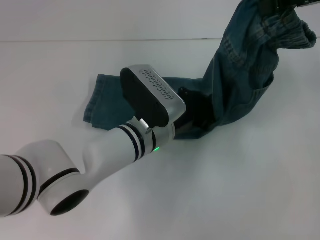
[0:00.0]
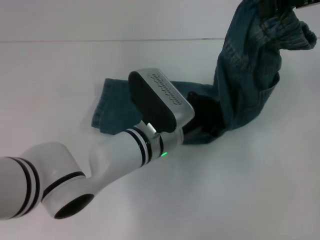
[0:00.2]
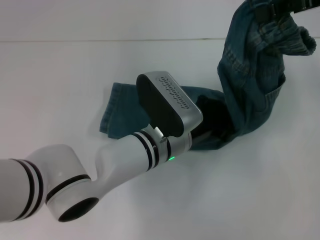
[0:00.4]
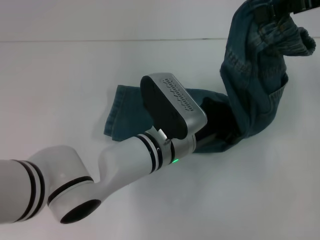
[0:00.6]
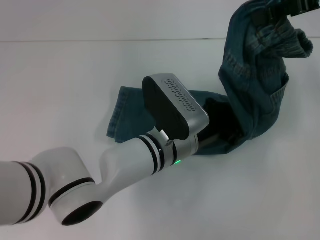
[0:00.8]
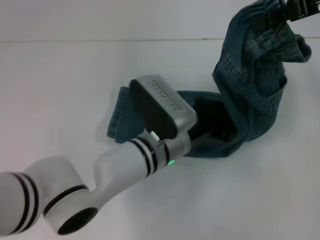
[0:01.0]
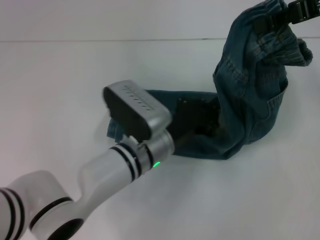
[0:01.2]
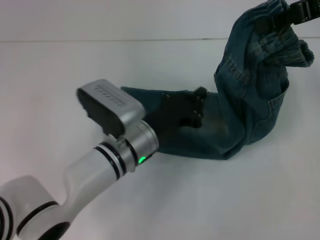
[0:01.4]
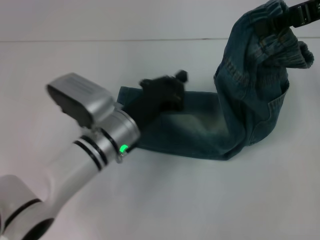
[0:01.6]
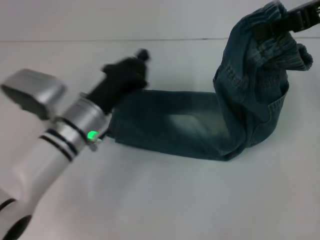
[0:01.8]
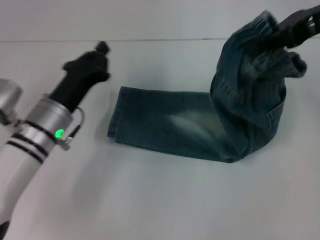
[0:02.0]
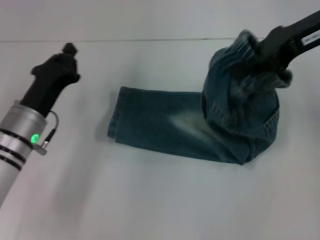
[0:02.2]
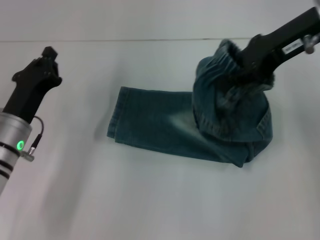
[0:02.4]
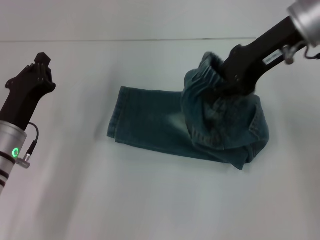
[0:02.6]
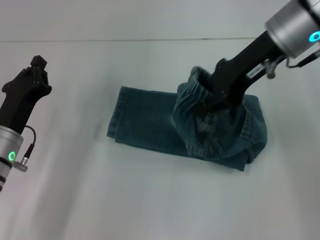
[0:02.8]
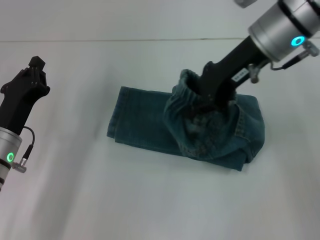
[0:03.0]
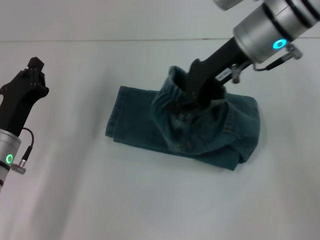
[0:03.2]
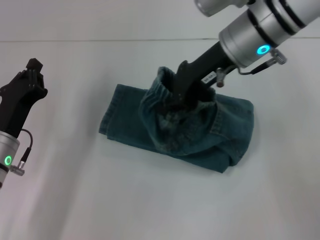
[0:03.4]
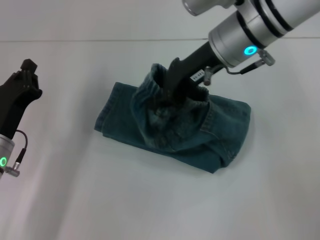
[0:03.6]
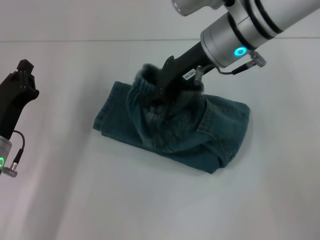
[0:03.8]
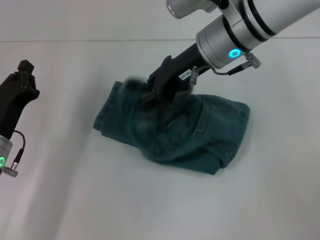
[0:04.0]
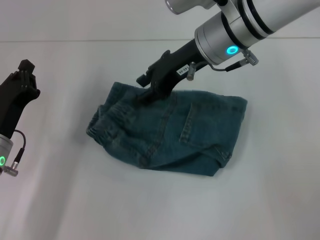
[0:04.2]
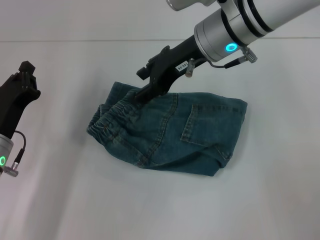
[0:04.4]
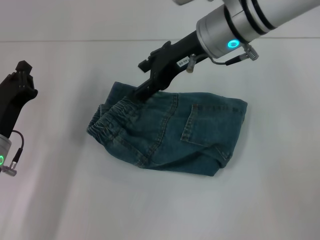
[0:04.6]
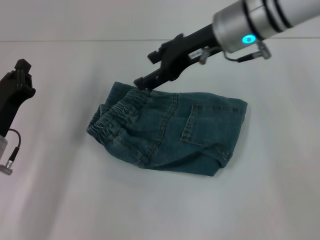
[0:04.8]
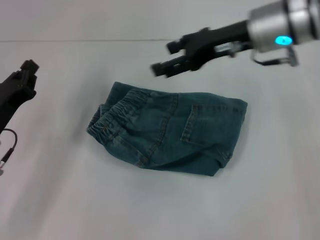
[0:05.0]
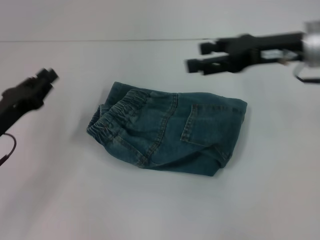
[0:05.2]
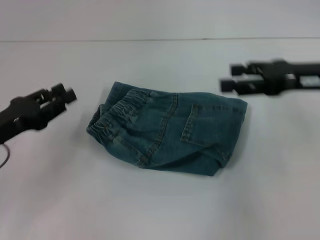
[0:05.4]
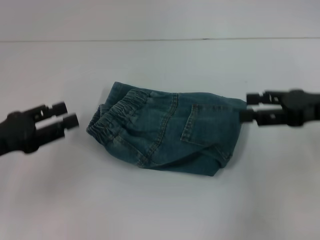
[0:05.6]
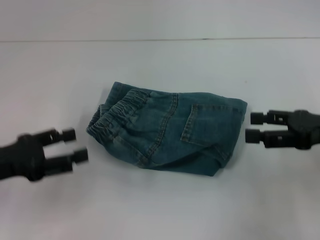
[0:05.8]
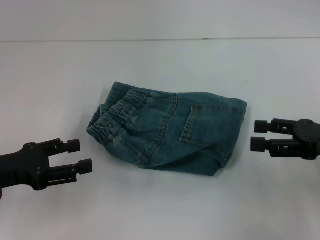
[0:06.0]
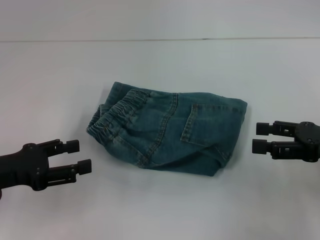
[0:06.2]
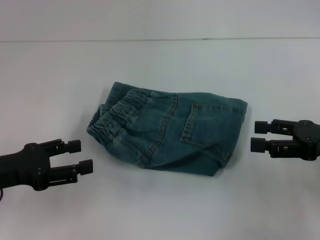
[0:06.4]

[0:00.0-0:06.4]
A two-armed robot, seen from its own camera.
Step, 0:01.2 to 0:04.0: Fold to the left with your right hand.
0:00.0 to 0:01.6: The left gripper heads to the left, covering roughly 5 cm.
0:01.6 to 0:03.2: The left gripper goes approximately 15 cm to the left. Meanwhile the right gripper goes roughly 15 cm to the left and downward.
0:03.2 to 0:04.8: The right gripper opens its fingers.
0:04.8 to 0:06.4: The left gripper is displaced upward by some 5 cm, and opens its fingers, while the right gripper goes some 25 cm to the right, backward and downward.

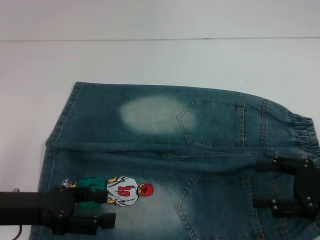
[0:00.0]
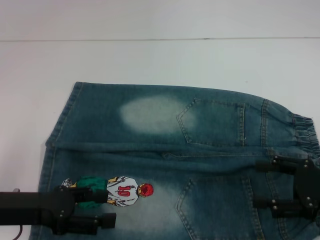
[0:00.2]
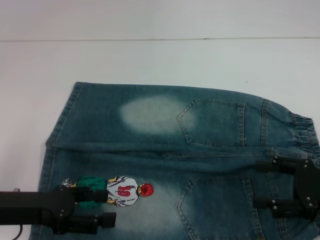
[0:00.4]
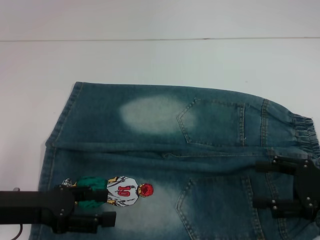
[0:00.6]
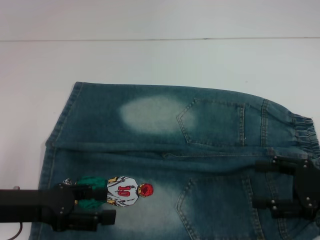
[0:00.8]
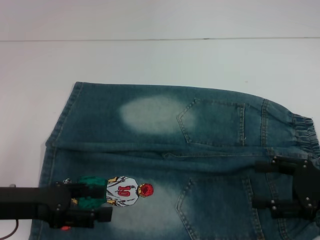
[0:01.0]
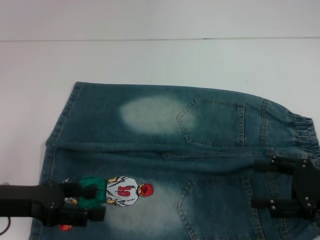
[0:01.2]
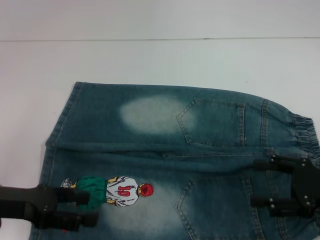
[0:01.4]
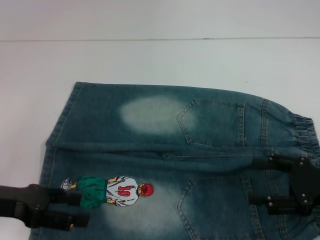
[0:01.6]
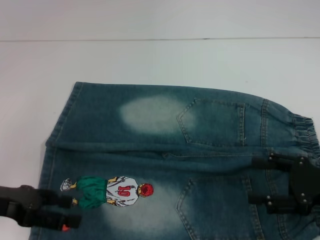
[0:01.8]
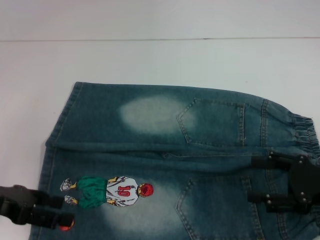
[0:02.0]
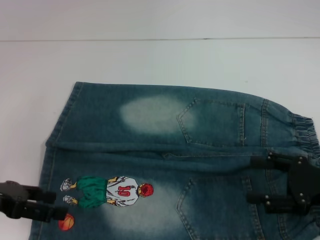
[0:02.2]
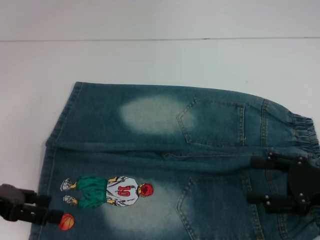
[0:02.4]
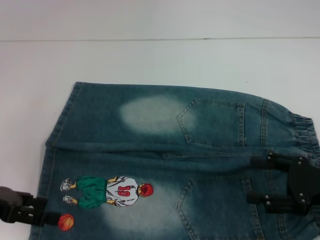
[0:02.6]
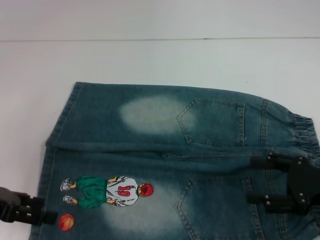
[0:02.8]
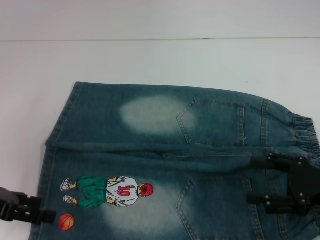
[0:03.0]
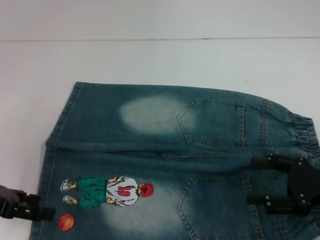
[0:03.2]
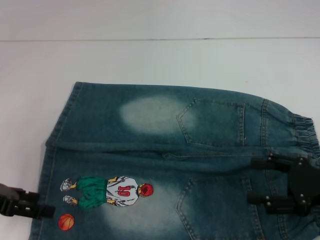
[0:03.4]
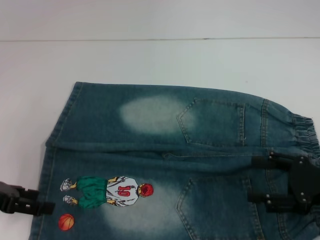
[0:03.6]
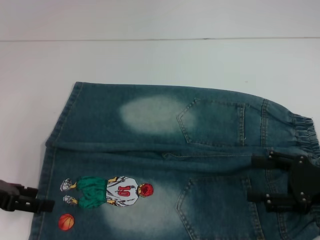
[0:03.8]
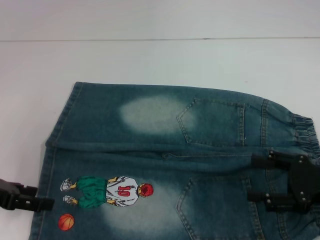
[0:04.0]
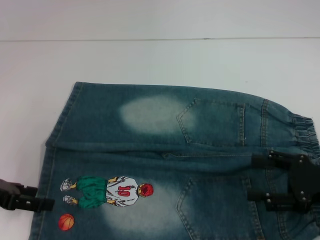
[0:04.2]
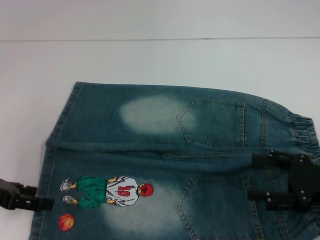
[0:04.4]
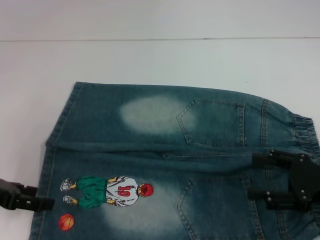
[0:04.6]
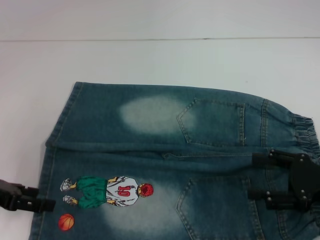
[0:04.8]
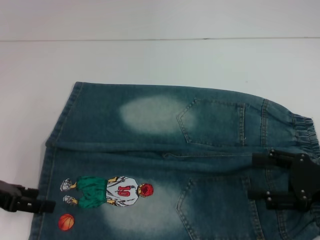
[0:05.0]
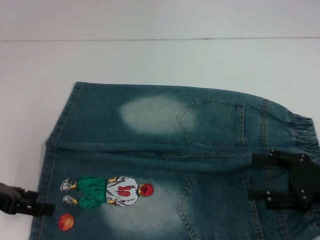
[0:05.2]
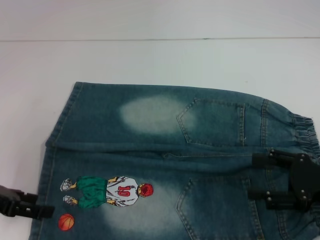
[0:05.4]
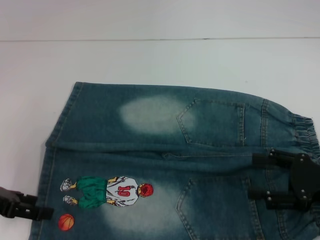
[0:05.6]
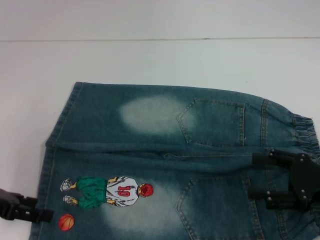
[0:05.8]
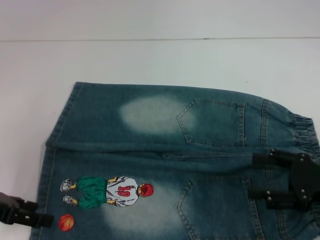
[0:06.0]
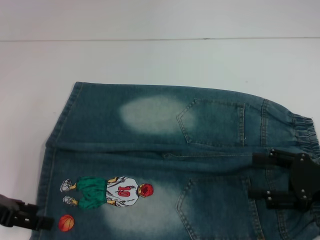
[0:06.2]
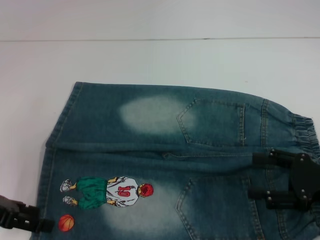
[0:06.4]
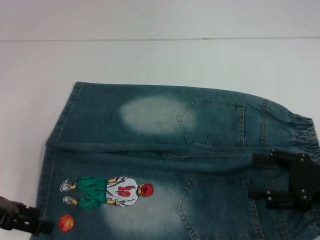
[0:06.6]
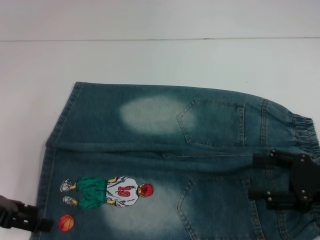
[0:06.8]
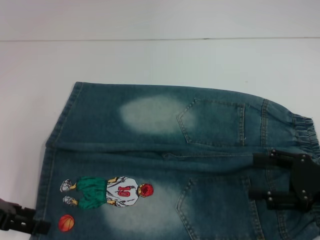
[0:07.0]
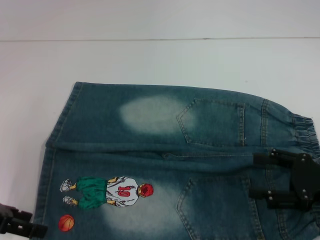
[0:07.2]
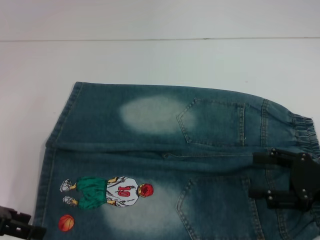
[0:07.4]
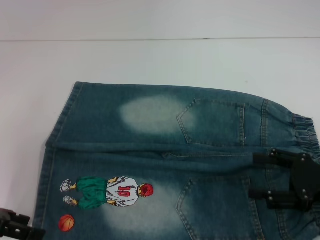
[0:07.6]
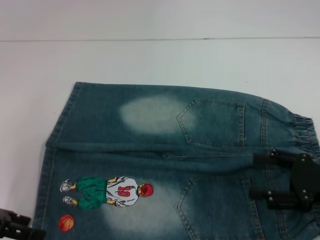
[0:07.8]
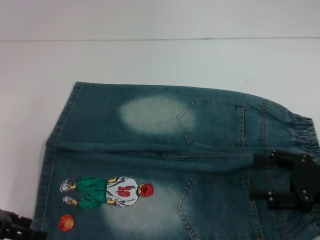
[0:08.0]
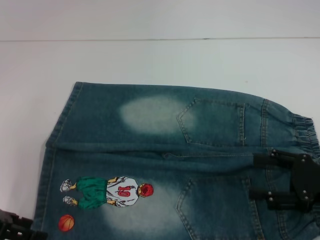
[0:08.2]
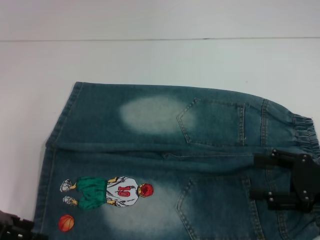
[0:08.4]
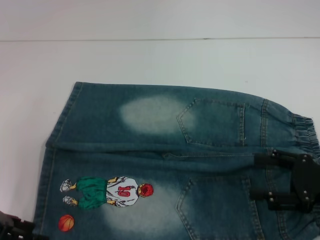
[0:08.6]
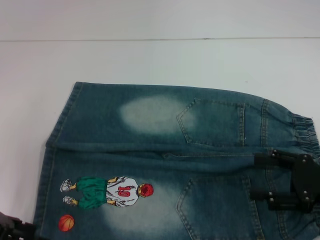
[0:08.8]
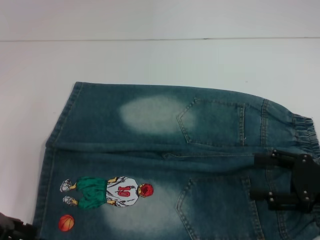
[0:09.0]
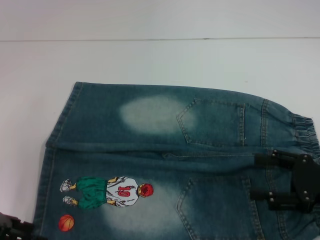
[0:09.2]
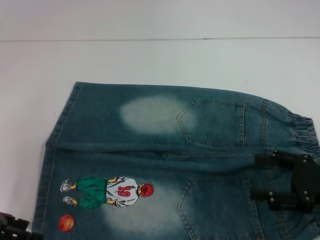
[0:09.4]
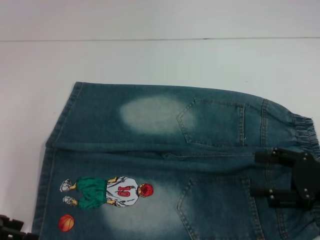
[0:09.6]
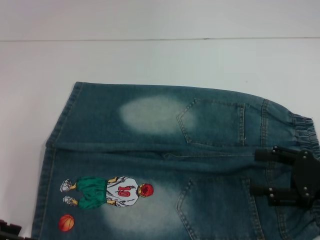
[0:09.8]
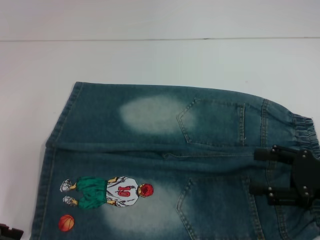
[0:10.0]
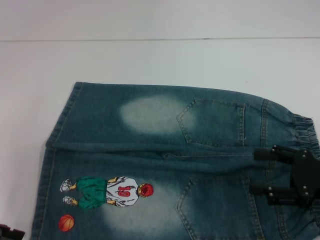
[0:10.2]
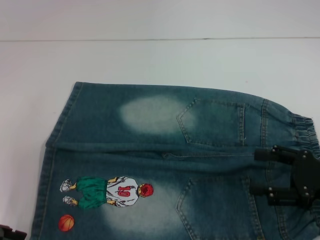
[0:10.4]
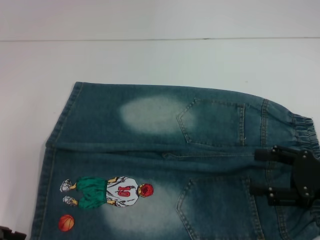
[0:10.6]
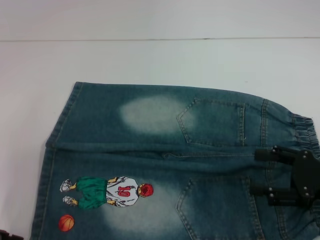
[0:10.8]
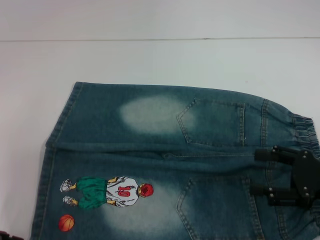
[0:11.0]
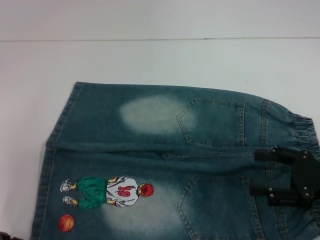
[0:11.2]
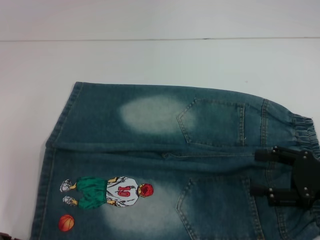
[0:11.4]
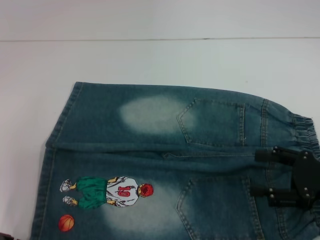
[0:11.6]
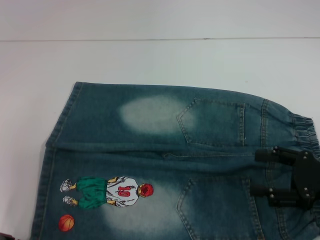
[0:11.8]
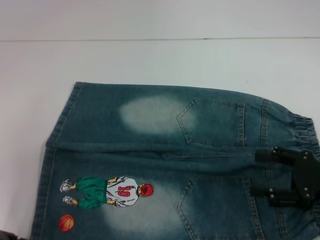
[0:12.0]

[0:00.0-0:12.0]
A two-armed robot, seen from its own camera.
0:00.0 to 0:01.6: There are only small adjustments of the grippers.
0:01.6 to 0:03.0: The grippers make only small movements.
0:03.0 to 0:04.4: The grippers stay close to where they were, moving slightly.
0:04.4 to 0:06.0: Both grippers stay about where they are.
0:06.0 to 0:07.6: Neither gripper changes place.
0:07.6 to 0:09.0: Neither gripper changes place.
0:09.0 to 0:10.4: The grippers stay close to where they were, moving slightly.
0:10.4 to 0:12.0: Both grippers stay put.

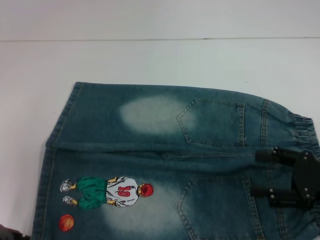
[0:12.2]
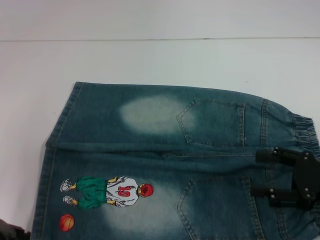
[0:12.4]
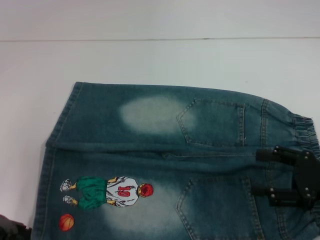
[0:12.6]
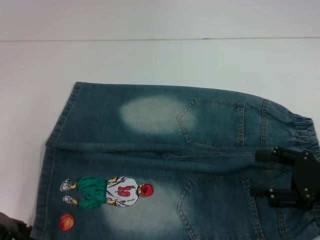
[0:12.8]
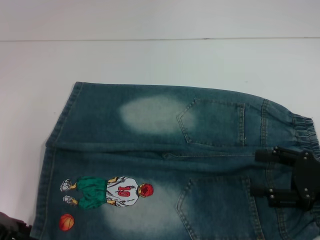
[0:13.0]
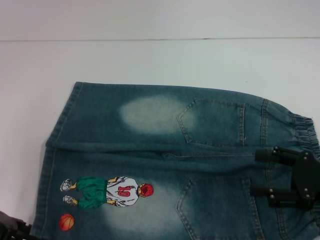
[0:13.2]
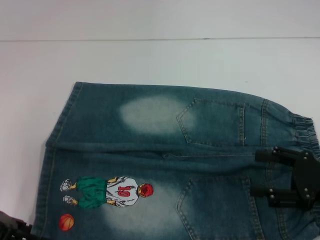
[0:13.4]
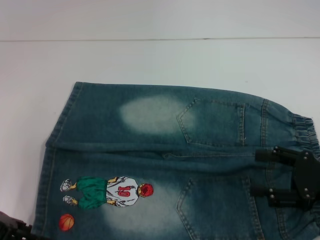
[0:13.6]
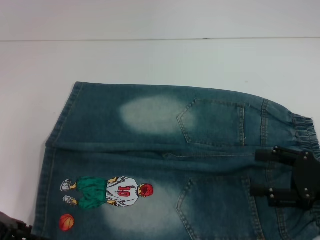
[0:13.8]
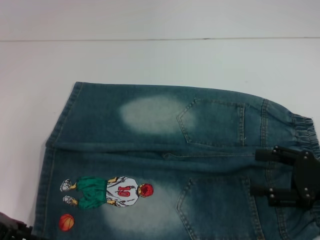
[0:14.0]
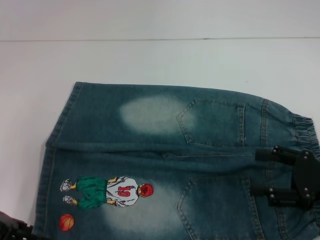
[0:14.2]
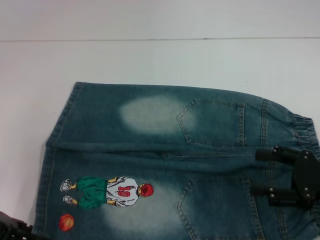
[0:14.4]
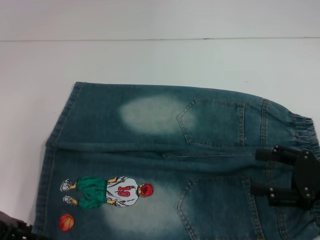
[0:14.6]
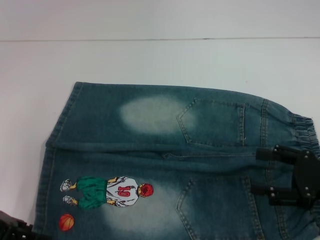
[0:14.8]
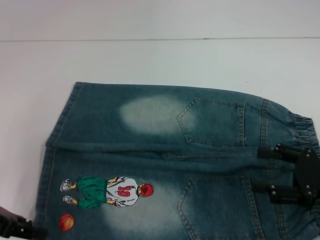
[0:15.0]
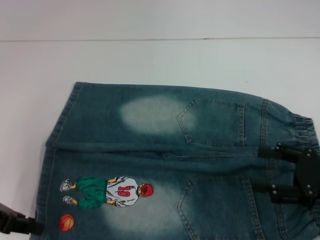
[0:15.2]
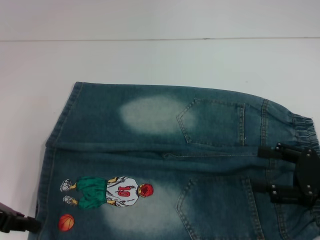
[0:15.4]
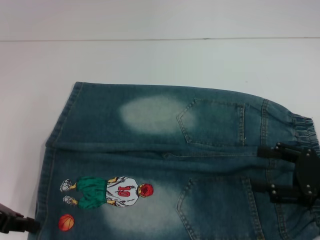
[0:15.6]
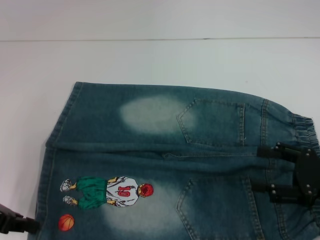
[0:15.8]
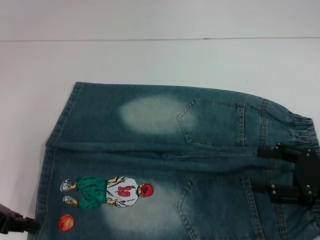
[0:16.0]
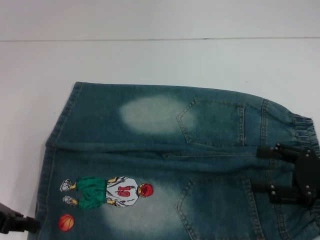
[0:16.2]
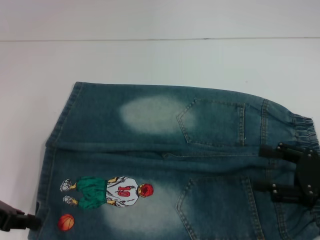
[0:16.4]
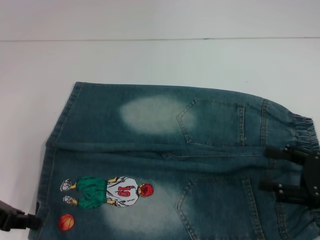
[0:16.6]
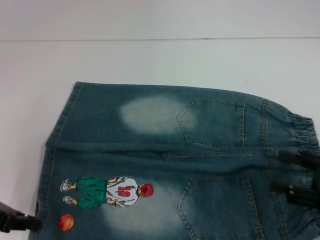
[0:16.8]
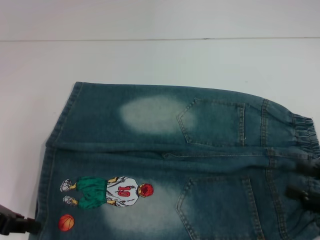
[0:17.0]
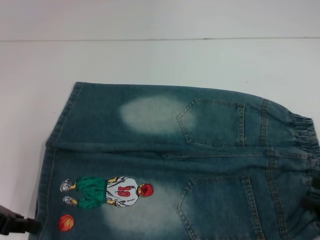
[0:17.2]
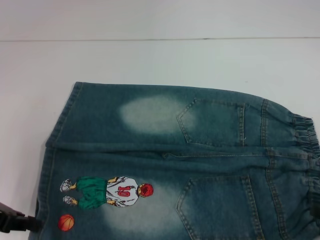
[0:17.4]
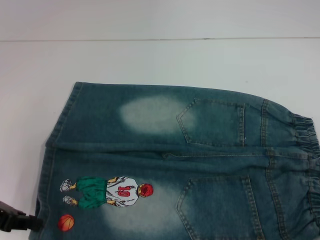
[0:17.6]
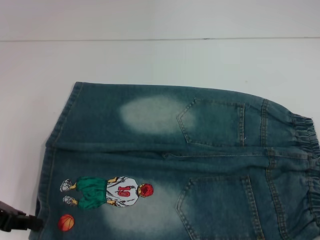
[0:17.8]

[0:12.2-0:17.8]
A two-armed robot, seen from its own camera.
0:12.2 to 0:13.6: The two grippers keep their place.
0:13.6 to 0:15.0: Neither gripper changes place.
0:15.0 to 0:16.4: The left gripper closes.
0:16.4 to 0:17.8: The right gripper heads backward and to the right, covering about 15 cm.
